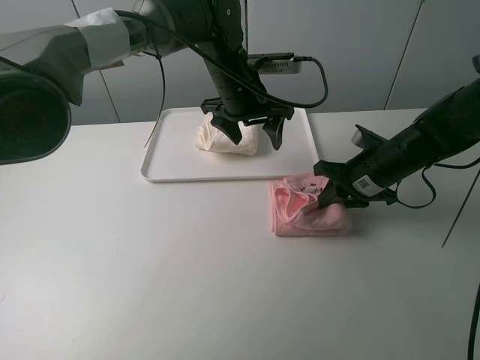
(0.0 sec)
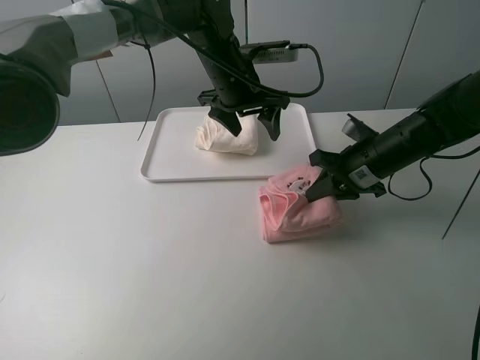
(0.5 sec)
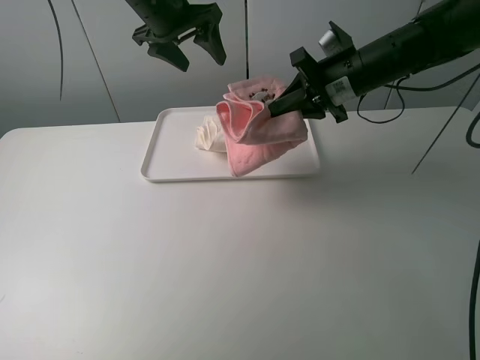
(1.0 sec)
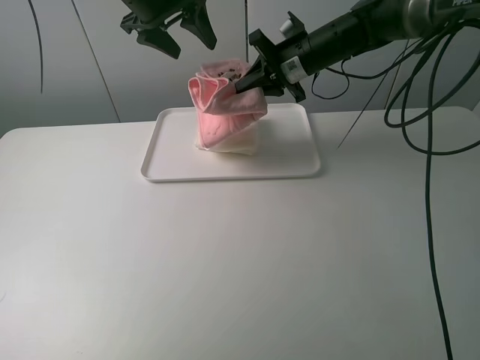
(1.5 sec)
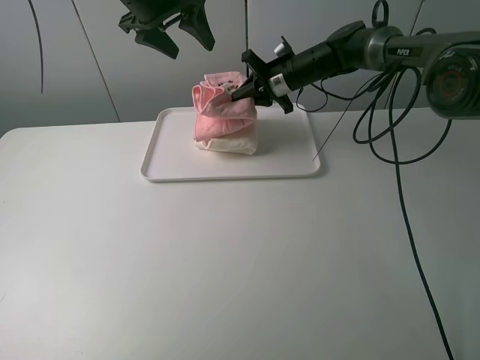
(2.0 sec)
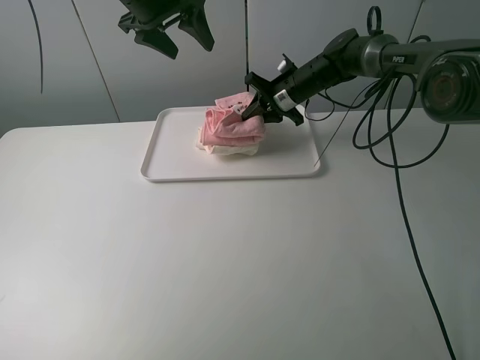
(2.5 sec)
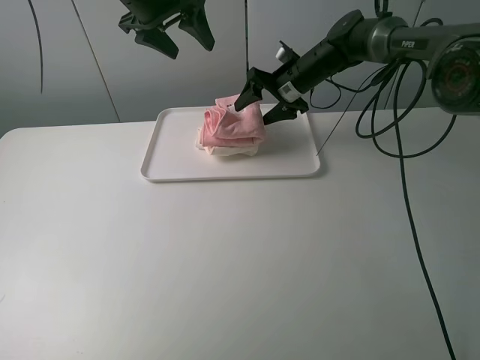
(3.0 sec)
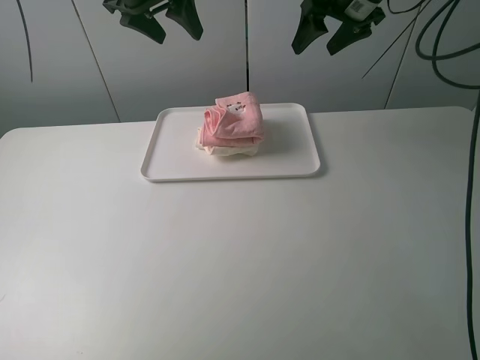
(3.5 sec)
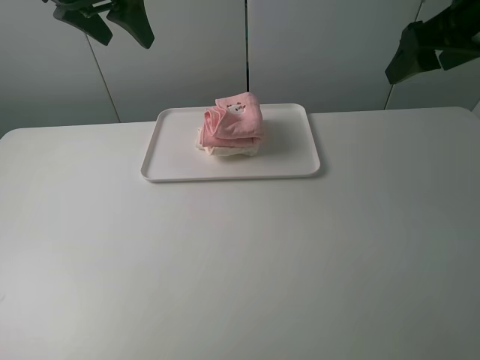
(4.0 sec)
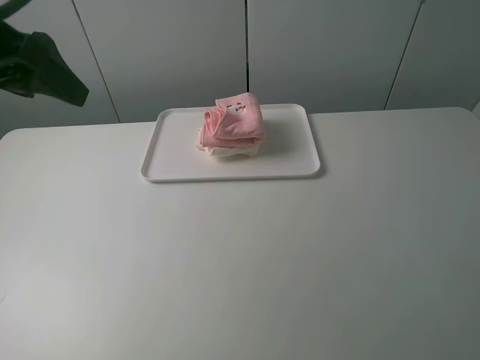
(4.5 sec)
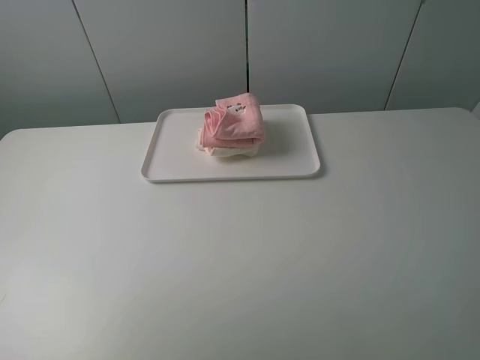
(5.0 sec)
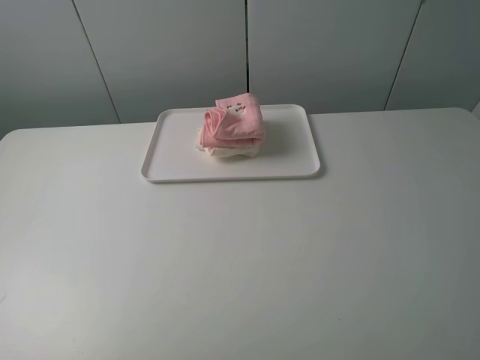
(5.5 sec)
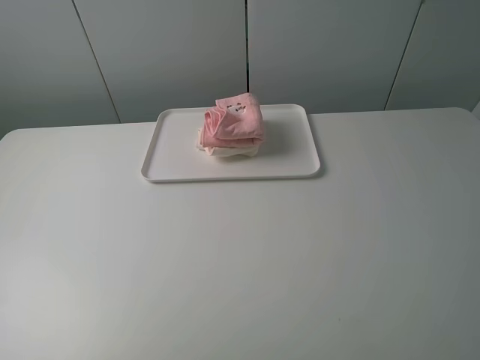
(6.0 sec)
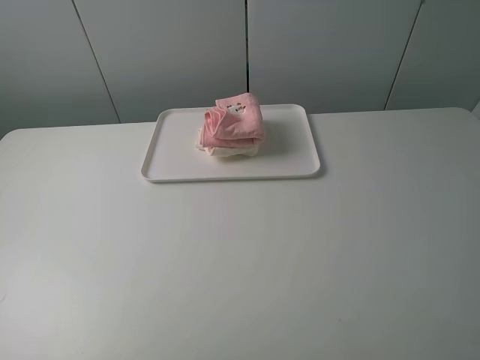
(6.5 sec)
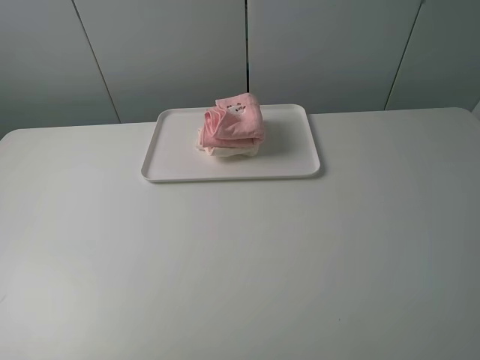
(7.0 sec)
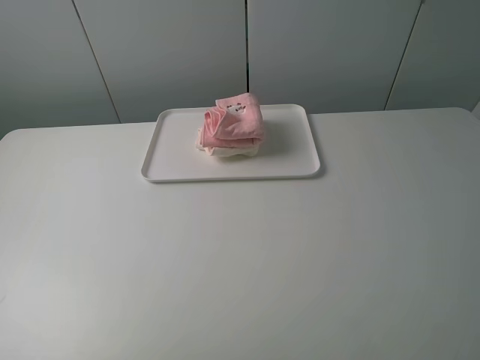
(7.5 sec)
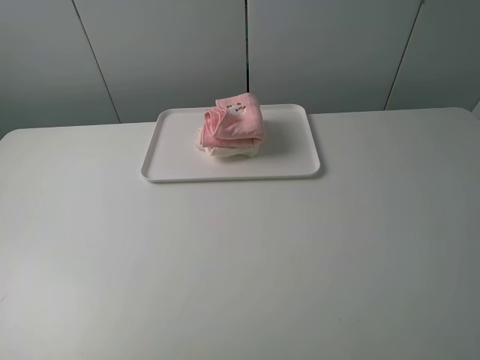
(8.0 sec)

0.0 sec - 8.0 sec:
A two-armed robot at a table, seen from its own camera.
Task of the whole recording: fold one of the towels by two grippers and place it on the tray,then fold another towel by two grippers and place it on the folded towel.
Step, 0.5 sec - 3.0 sec: Place the pink towel on the white towel with the right gripper.
0.0 sec - 2.0 sec: The left gripper travels to the left and upward by about 20 cm, while the right gripper is displaced forward and to the left by about 20 cm.
2.0 sec - 4.0 sec: The right gripper heads backward, upward and to the right, covering some 35 cm, and opens up. Meanwhile the left gripper moves backward, to the left and upward, about 10 cm.
4.0 sec - 6.0 sec: The two grippers go some 35 cm backward.
